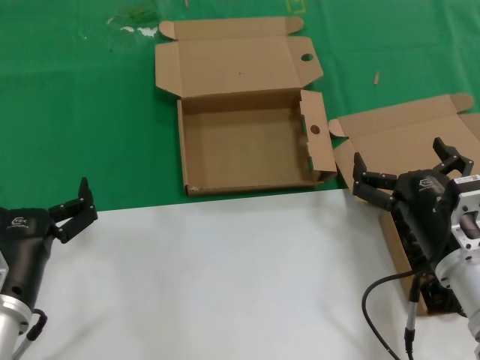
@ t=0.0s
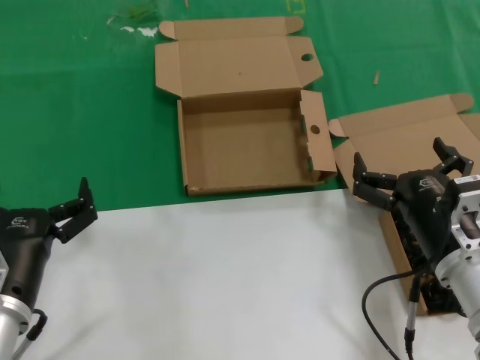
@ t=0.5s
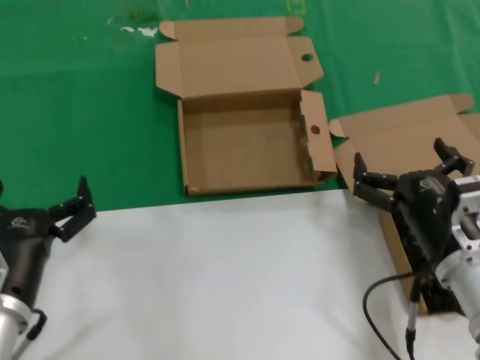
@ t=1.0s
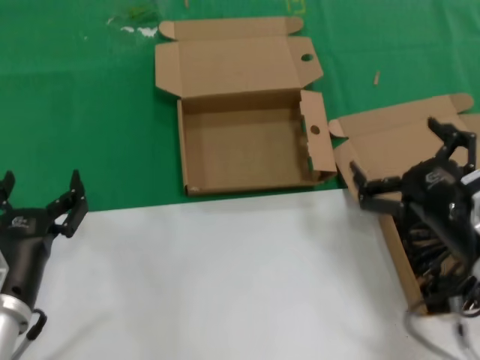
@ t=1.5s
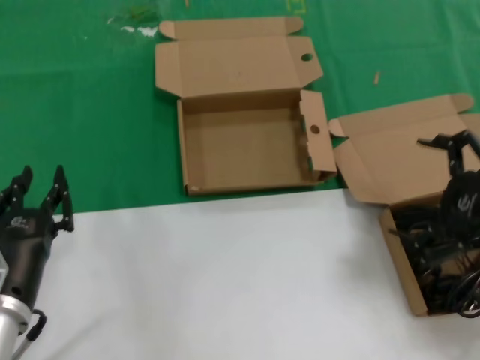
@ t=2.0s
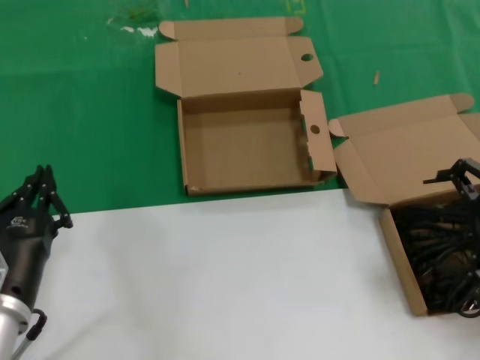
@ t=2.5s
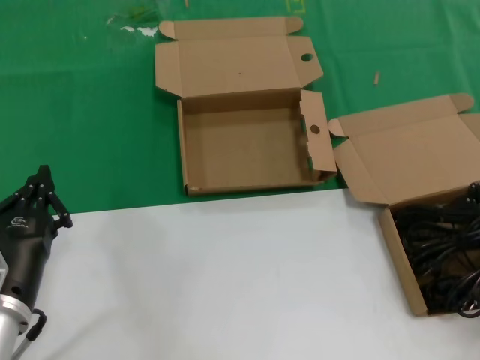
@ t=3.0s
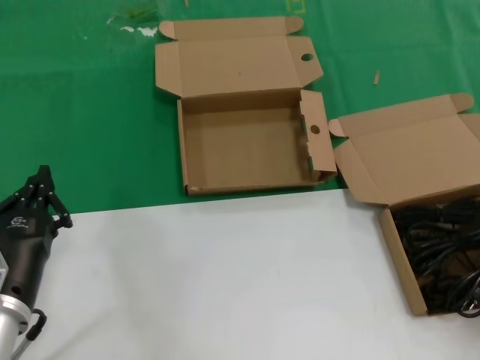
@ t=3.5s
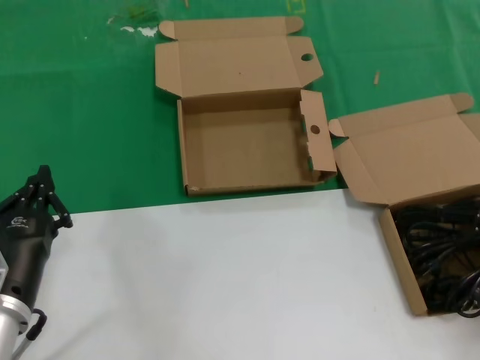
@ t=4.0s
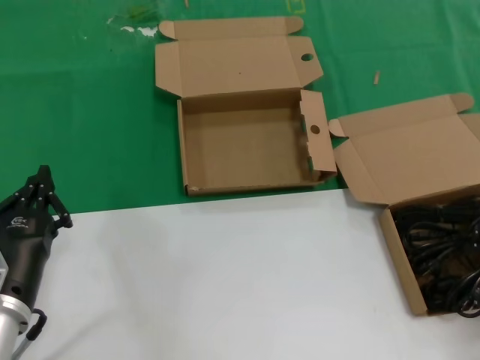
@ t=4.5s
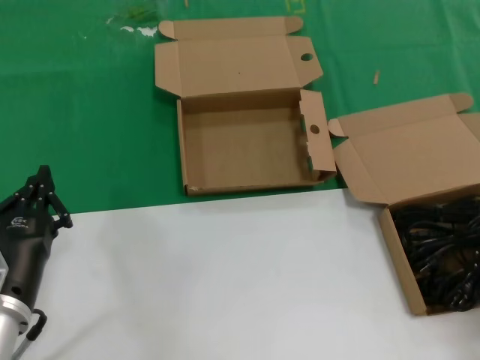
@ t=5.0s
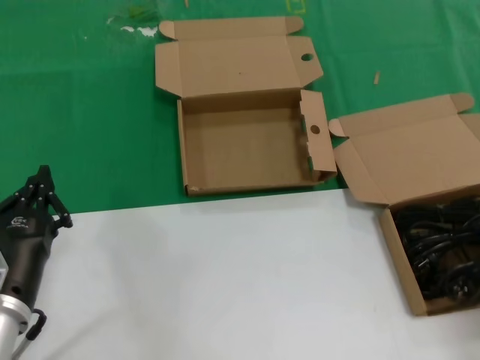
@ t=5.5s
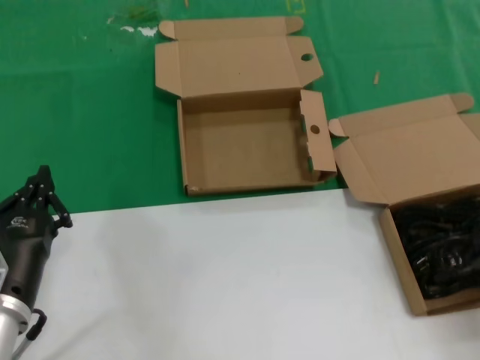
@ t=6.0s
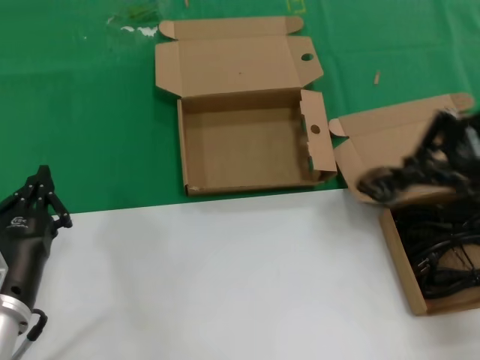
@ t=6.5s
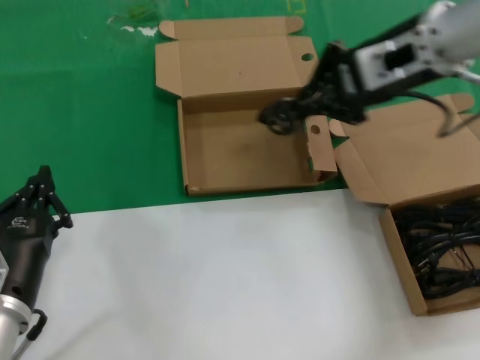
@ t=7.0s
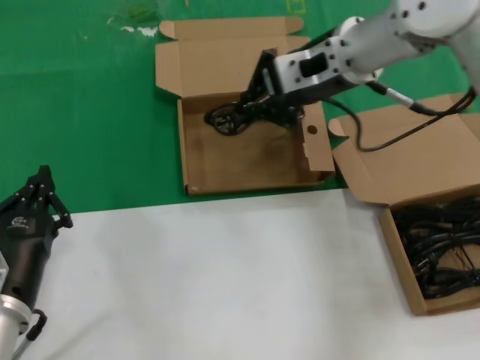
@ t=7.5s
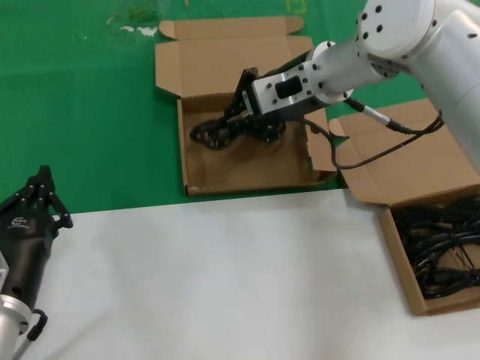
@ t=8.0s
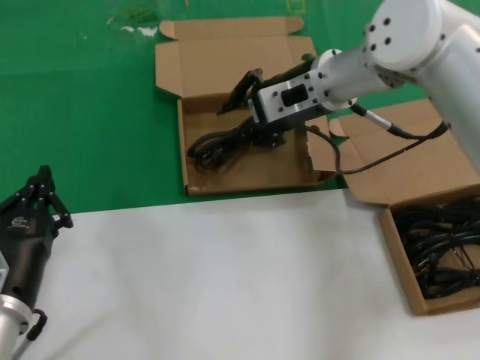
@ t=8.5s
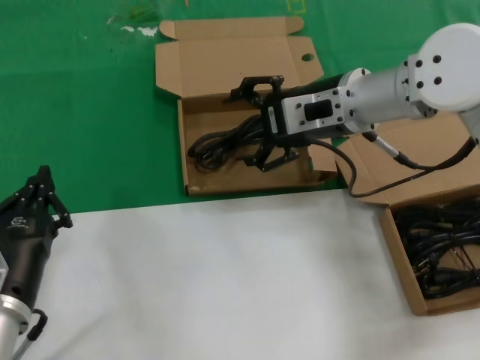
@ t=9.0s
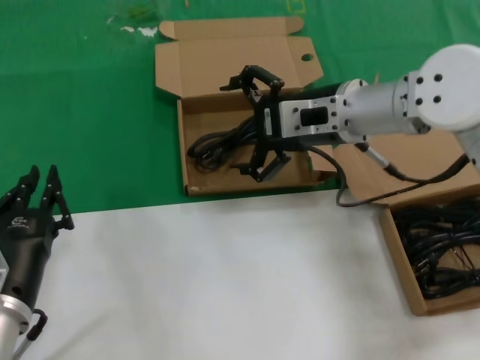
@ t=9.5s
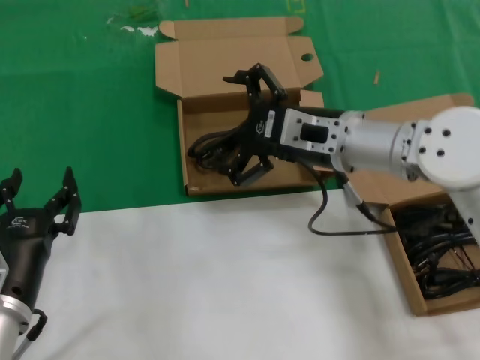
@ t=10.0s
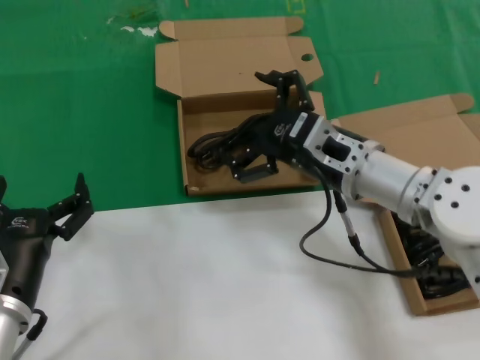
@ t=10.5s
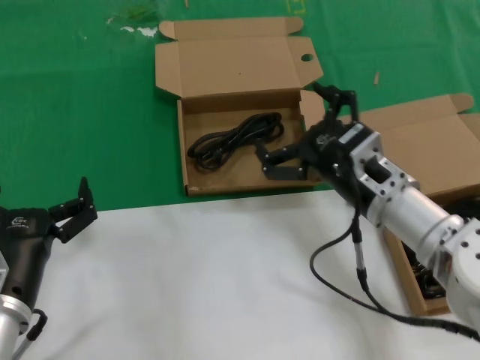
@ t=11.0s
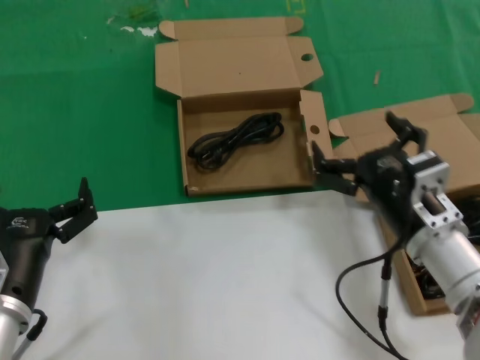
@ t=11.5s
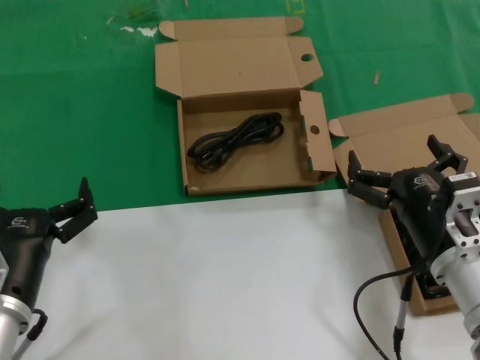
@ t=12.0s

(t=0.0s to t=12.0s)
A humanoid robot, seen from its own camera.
Task of the whole recording: take the parts from the box containing them and put them into an empty box.
Step, t=0.0s - t=5.0s: Grasp the data cable.
Step, t=5.5s - t=8.5s: Place the data cable in the another box.
t=0.0s - t=2.0s: The right hand travels upward and to the right by about 15 cm.
t=2.0s - t=4.0s: The right hand goes some 10 cm to the right and forward.
t=4.0s - t=6.0s: The right hand is displaced upward by roughly 5 cm.
t=6.0s - t=8.0s: The right hand moves to the left and forward, some 30 cm.
t=8.0s - t=10.0s: The right hand heads backward and downward, covering roughly 10 cm.
t=10.0s - t=12.0s: The right hand goes about 20 cm backward, downward and to the right.

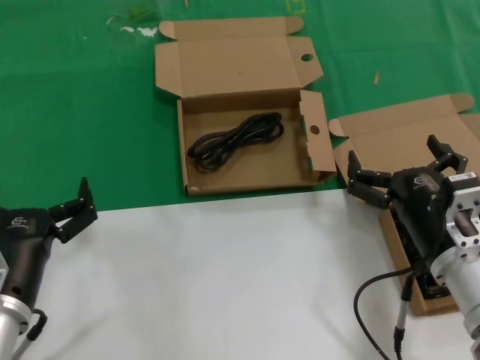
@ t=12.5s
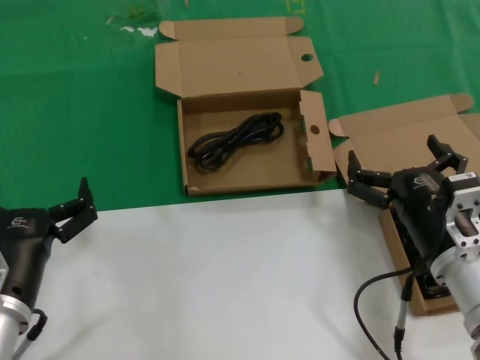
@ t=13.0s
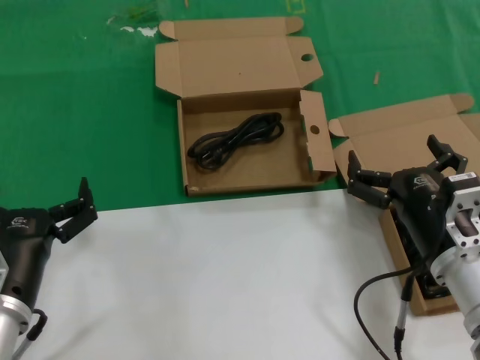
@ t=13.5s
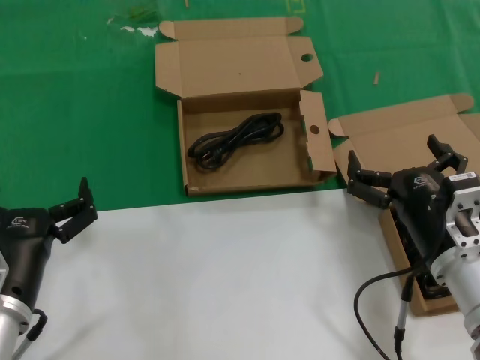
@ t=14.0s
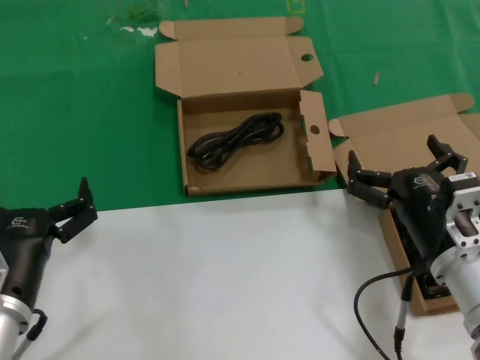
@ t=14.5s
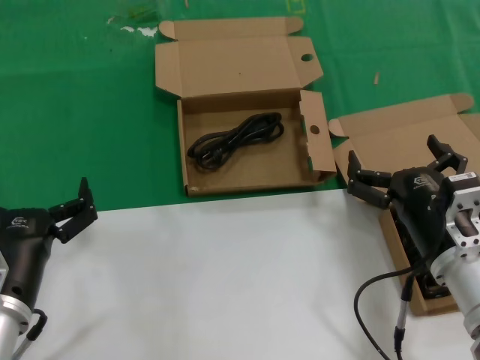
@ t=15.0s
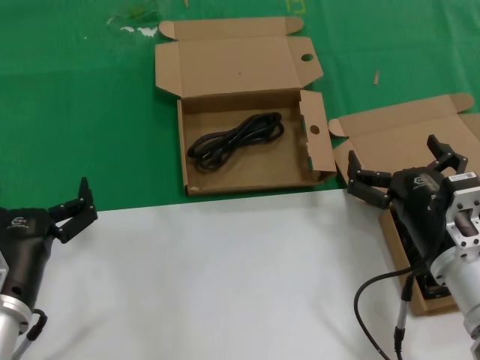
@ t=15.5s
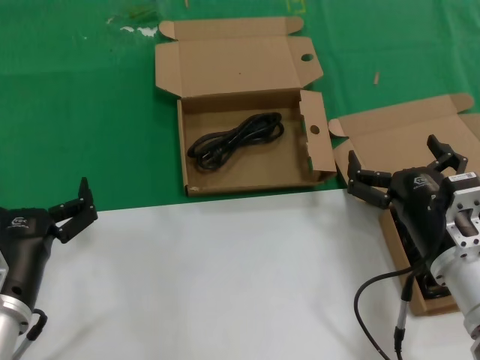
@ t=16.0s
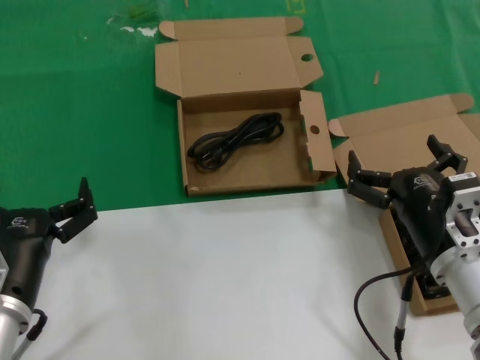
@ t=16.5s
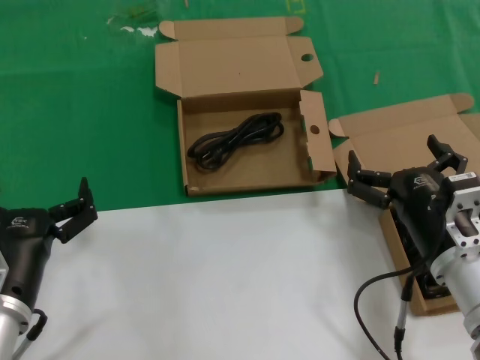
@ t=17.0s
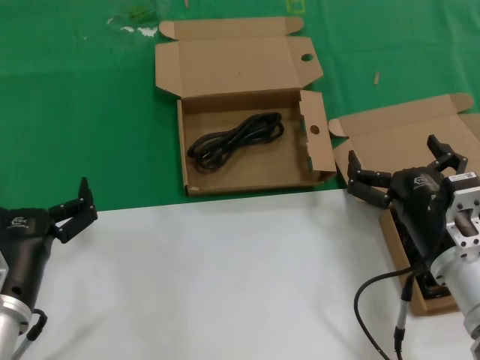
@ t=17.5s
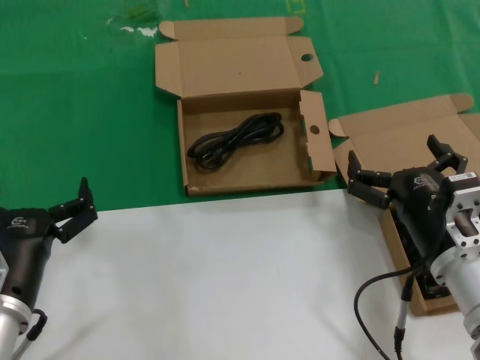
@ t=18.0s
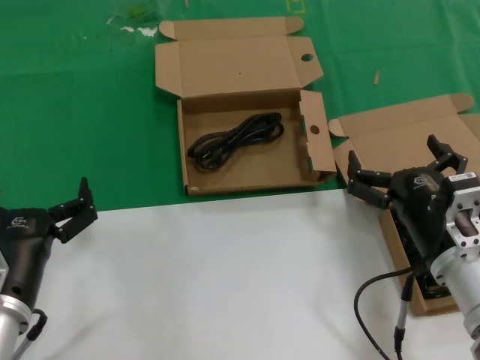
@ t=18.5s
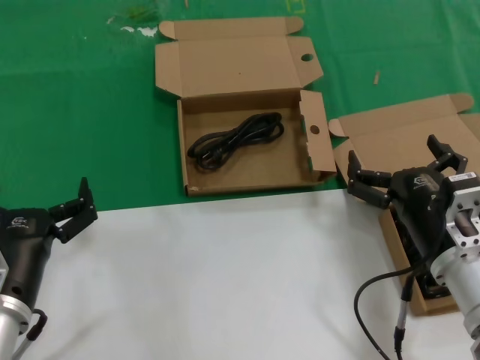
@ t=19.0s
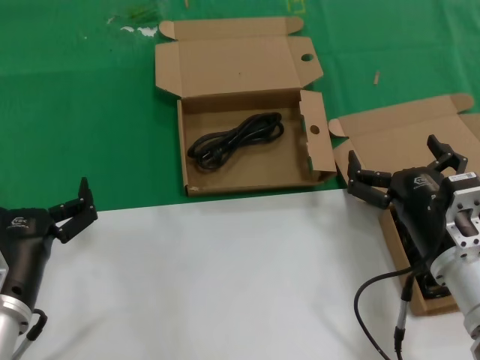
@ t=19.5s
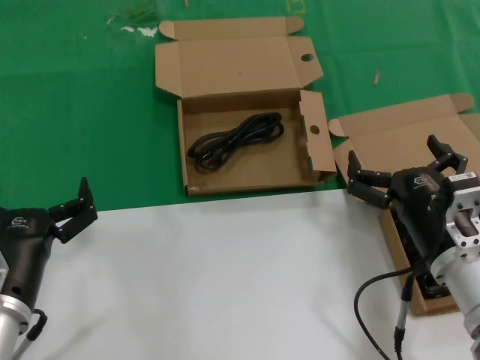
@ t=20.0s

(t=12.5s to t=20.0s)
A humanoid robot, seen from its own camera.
Task of the whole recording: take the parts from the box containing them and put them into an empty box.
t=12.5s - t=20.0s: The two hands keep their place.

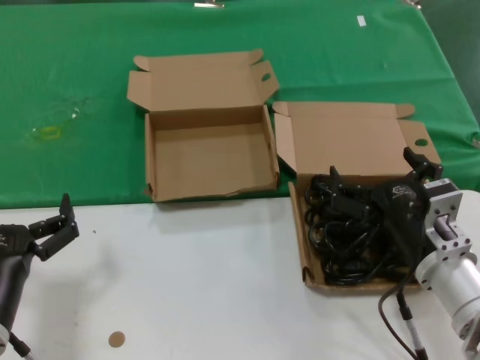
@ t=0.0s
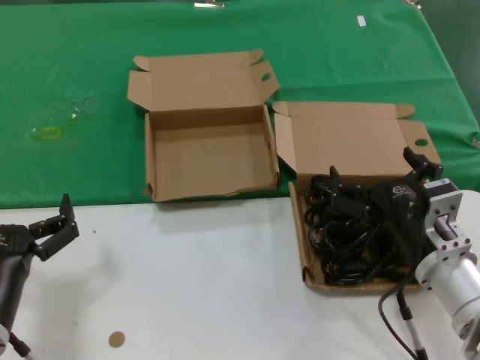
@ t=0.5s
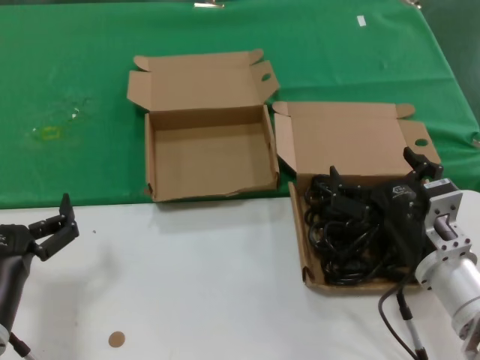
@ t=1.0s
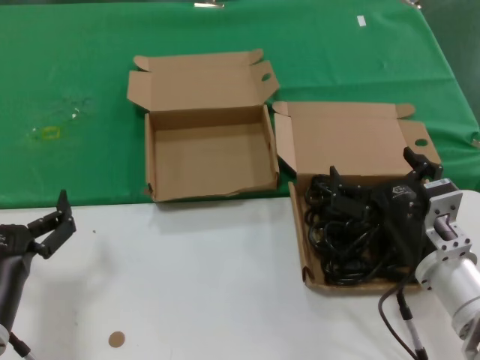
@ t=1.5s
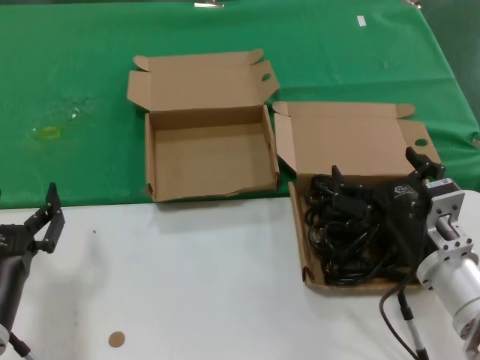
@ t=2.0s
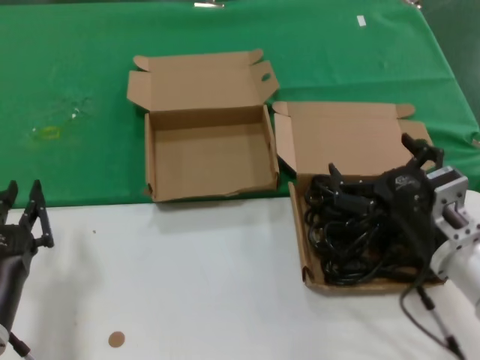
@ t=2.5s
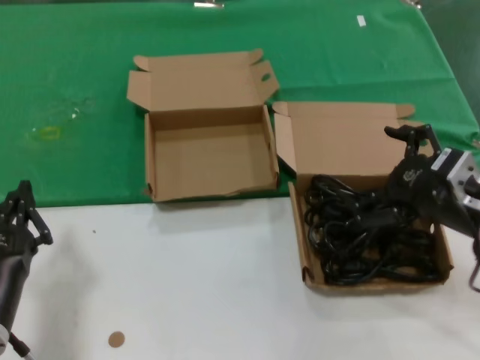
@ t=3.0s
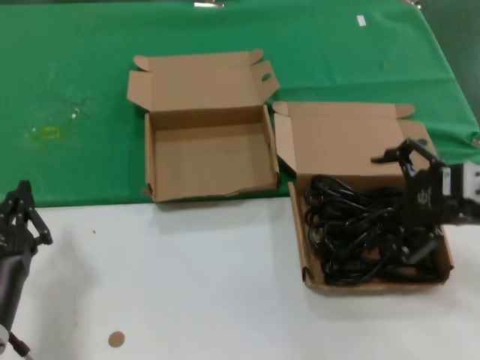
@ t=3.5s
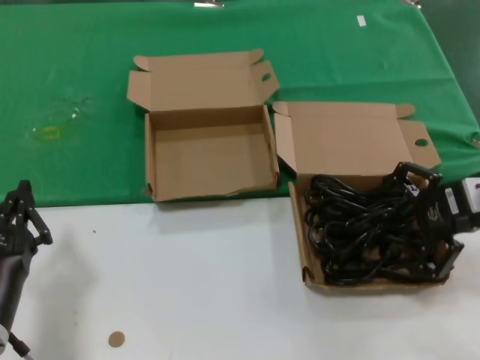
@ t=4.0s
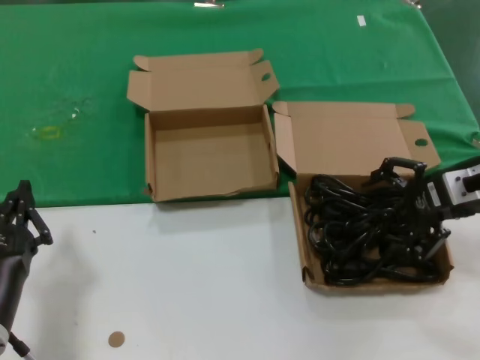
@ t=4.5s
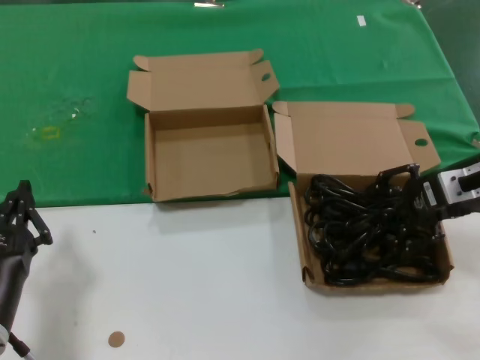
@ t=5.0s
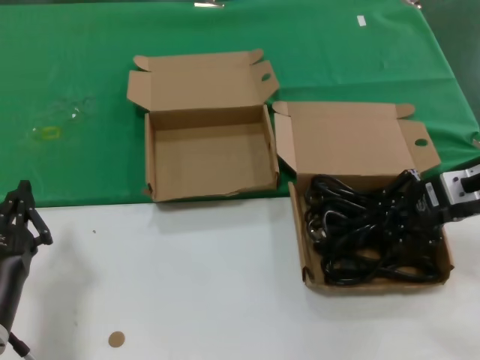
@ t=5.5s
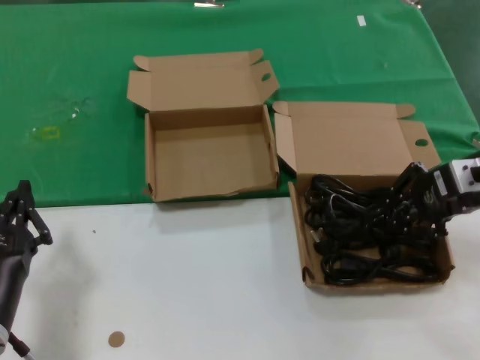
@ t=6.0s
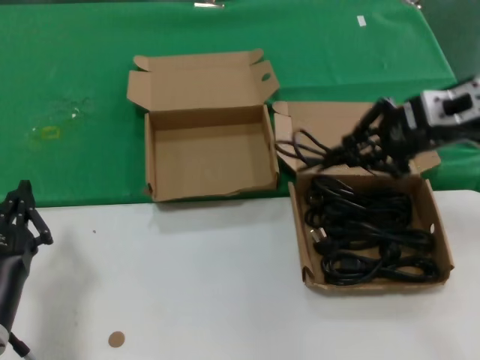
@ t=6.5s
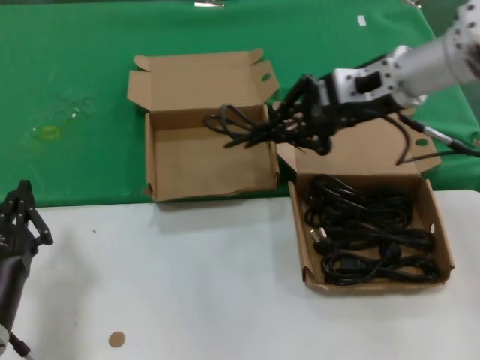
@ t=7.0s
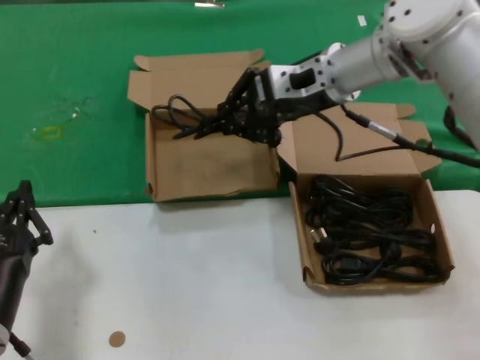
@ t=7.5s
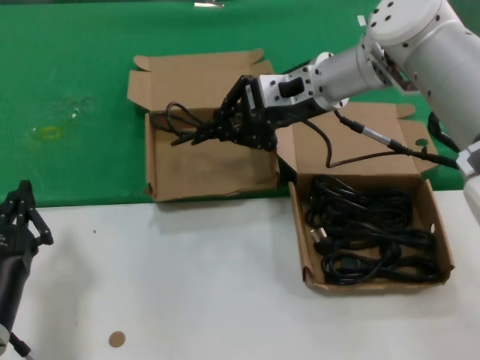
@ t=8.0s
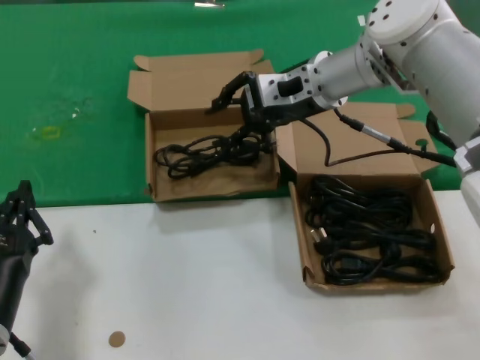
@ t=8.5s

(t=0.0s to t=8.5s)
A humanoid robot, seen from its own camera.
Task of the whole recording: take the parts from the box containing them and put them into an empty box.
Step, t=0.0s - t=5.5s: Grasp the data cable.
t=0.0s - t=2.0s: The two hands keep their place.
t=2.0s - t=4.0s: The right hand goes approximately 20 cm upward, to the right and forward.
t=4.0s - t=6.5s: The right hand travels upward and forward by some 10 cm.
t=6.5s - t=8.5s: The right hand shifts about 20 cm to the left and forward.
